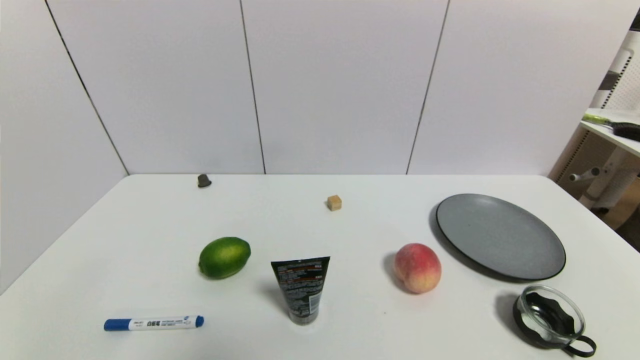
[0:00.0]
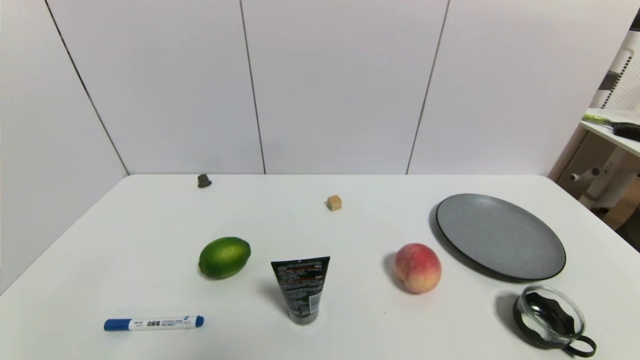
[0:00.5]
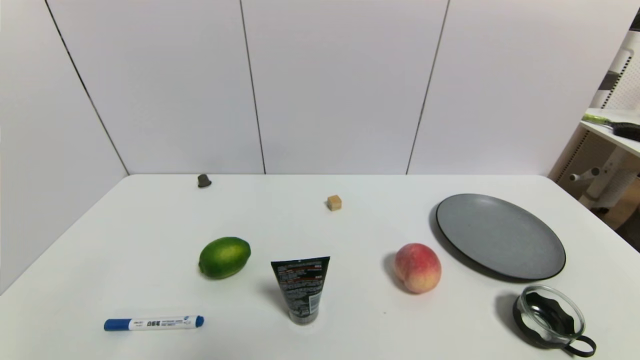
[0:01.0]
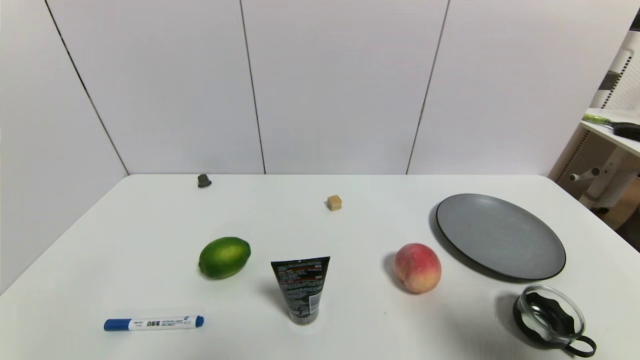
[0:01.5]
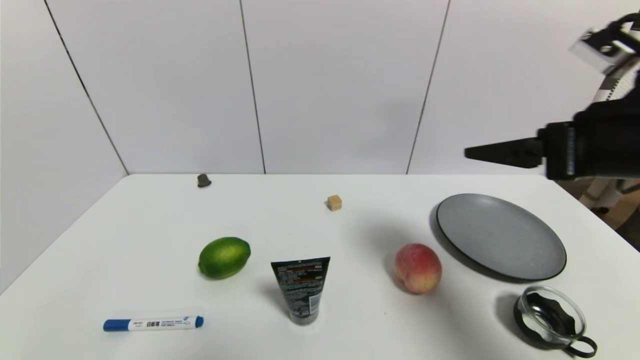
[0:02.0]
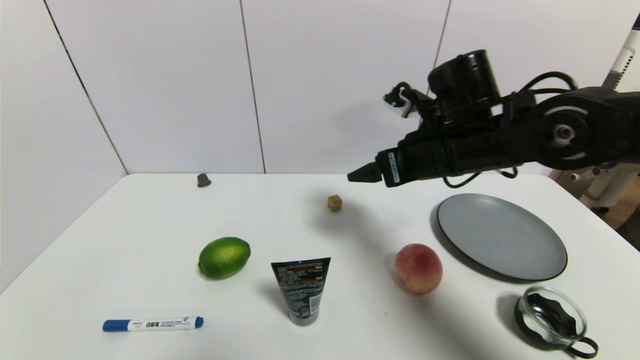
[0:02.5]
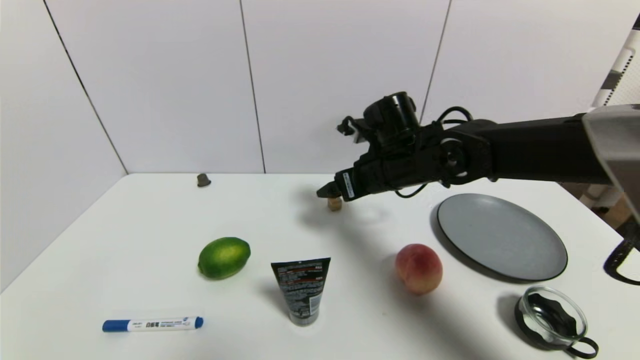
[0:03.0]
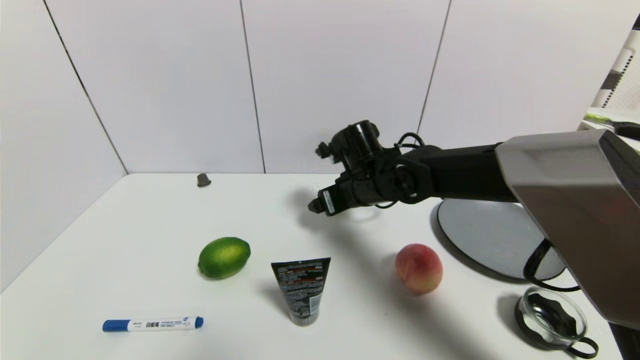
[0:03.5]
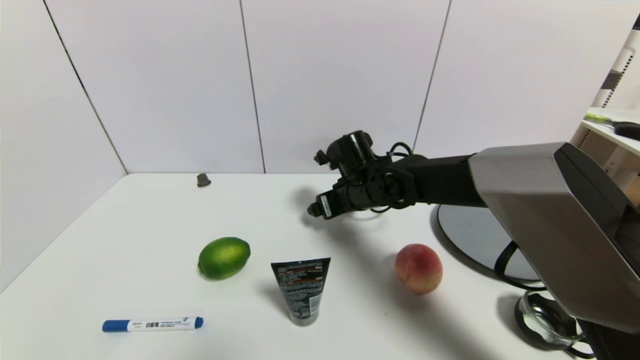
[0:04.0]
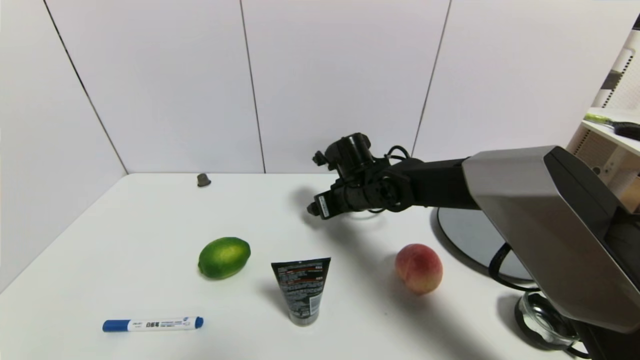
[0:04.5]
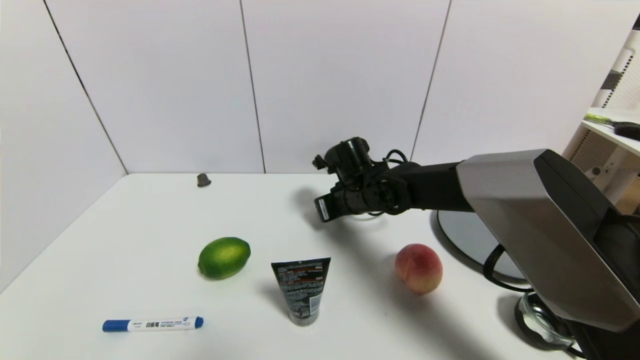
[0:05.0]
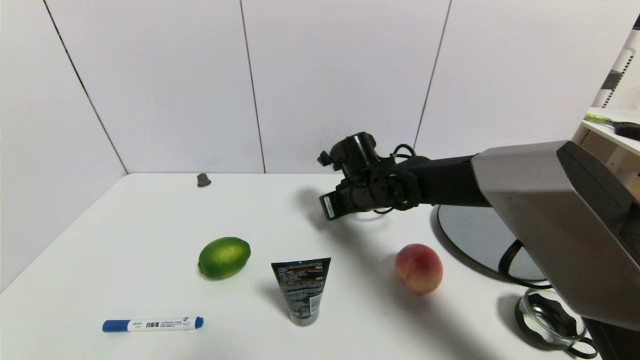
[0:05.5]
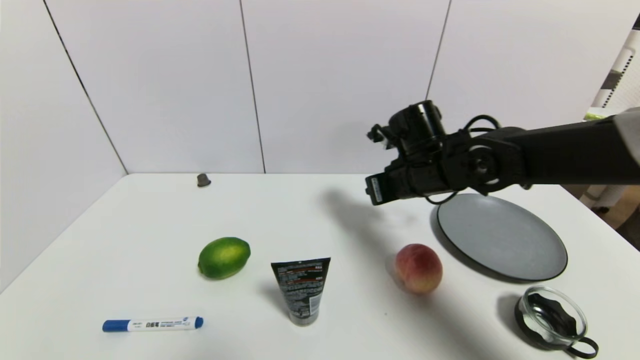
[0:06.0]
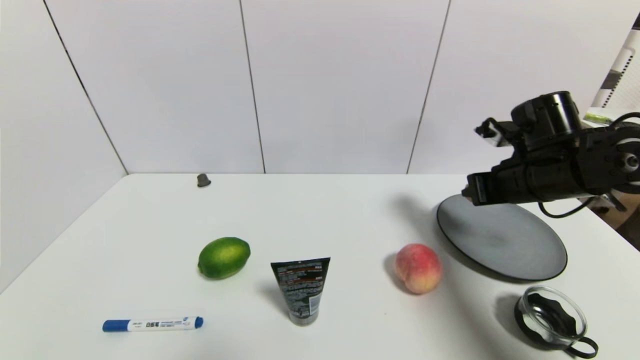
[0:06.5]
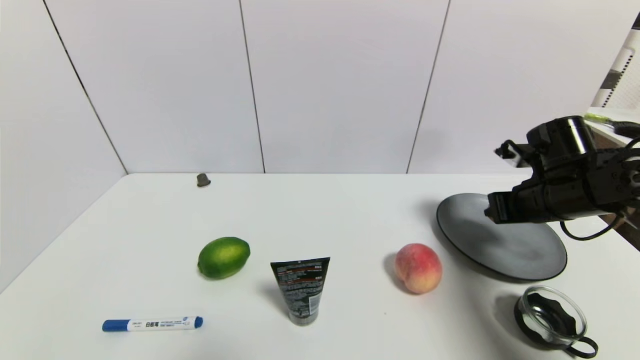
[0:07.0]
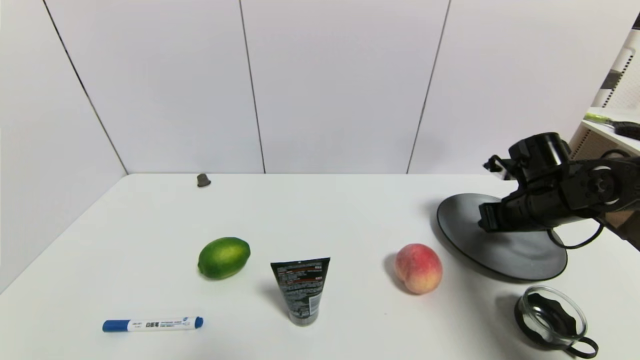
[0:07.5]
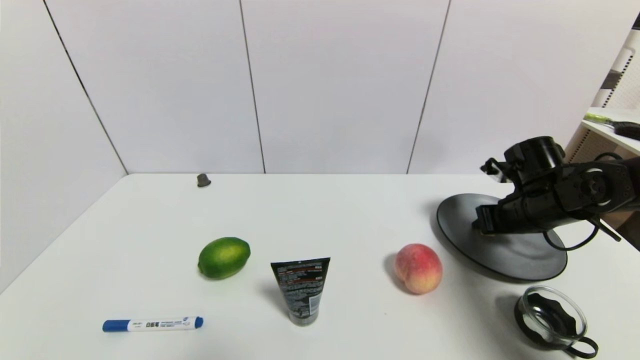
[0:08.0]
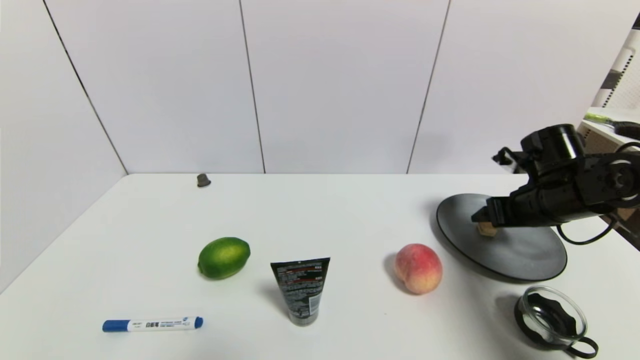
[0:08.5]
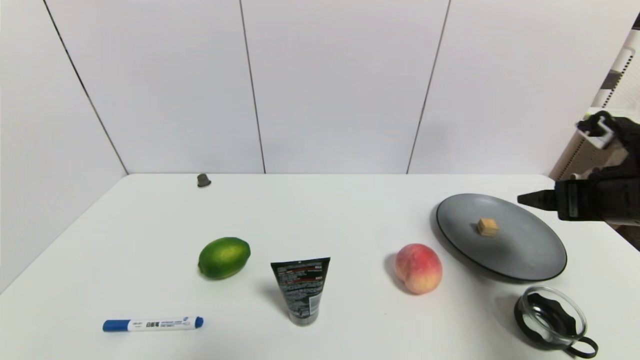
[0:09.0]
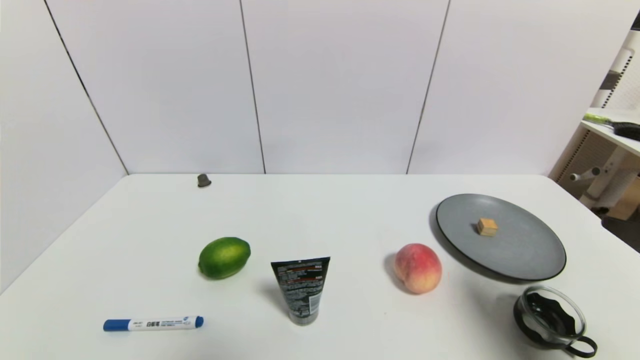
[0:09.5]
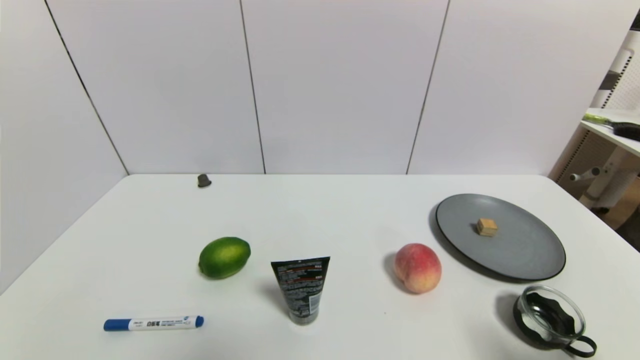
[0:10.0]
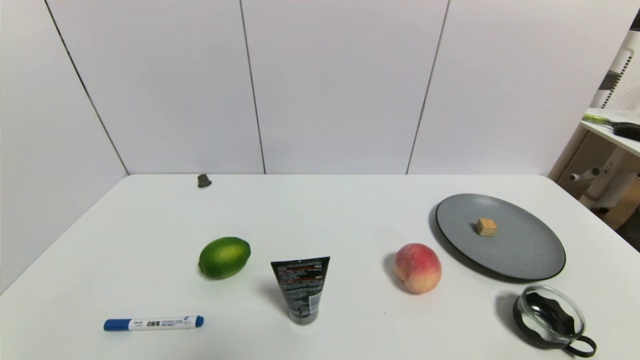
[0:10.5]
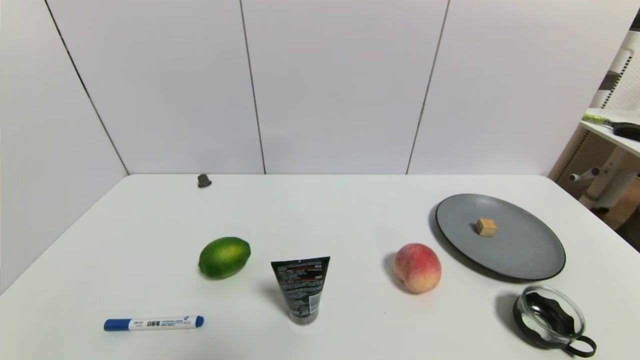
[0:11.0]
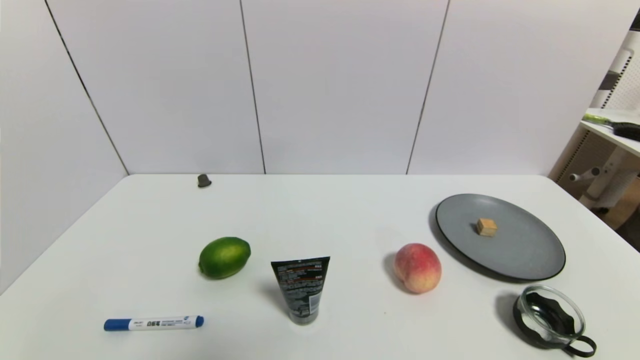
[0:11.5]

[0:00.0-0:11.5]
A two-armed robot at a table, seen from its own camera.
Task of the whole recording: use a gripper to pick the target object and place on the gray plate.
Step, 0:00.0 to 0:05.0: Grasp the square wooden block with the right gripper.
Step, 0:05.5 to 0:08.0: Place the square wooden block on the gray plate with the right gripper.
0:00.0 to 0:02.0: The right gripper travels forward and upward by about 35 cm.
0:02.0 to 0:04.0: The right gripper shifts approximately 30 cm to the left, forward and downward.
0:04.0 to 0:06.0: The right gripper travels to the right and upward by some 10 cm, and closes its fingers.
0:06.0 to 0:07.5: The right gripper goes roughly 15 cm to the right.
0:07.5 to 0:09.5: The right gripper heads backward, covering roughly 25 cm, and opens up.
0:09.5 to 0:11.5: The right gripper moves downward and backward, some 20 cm.
